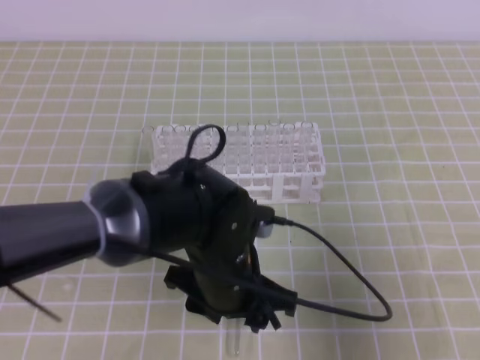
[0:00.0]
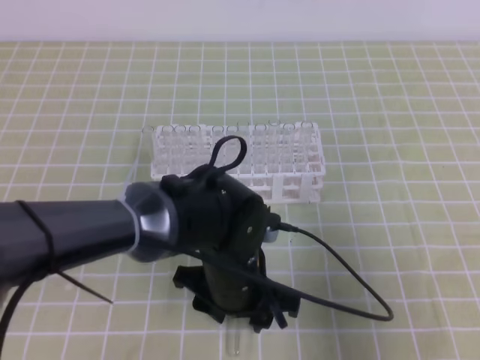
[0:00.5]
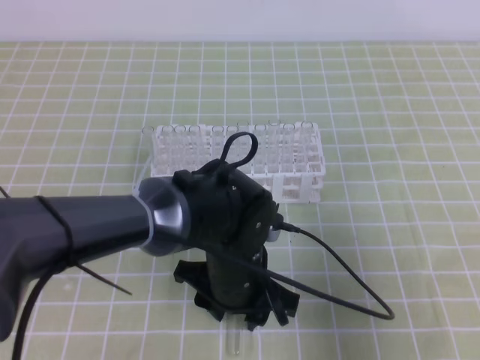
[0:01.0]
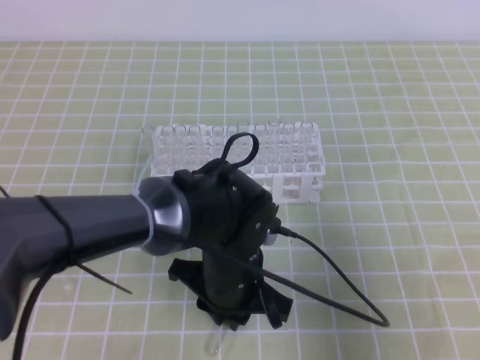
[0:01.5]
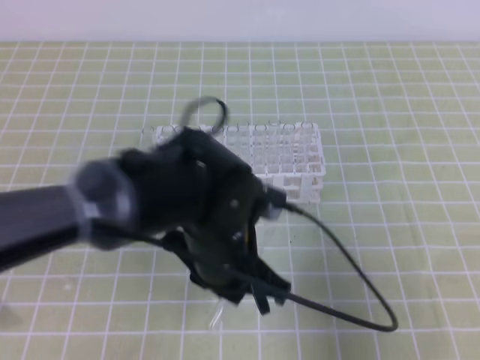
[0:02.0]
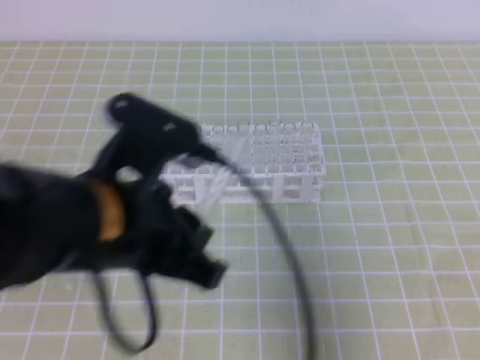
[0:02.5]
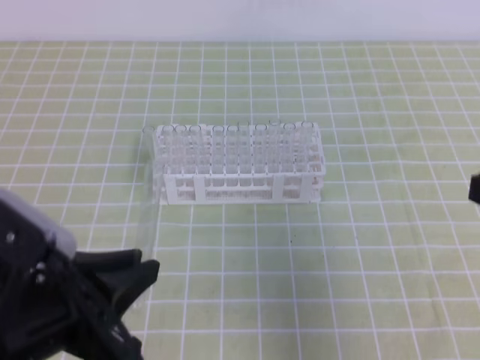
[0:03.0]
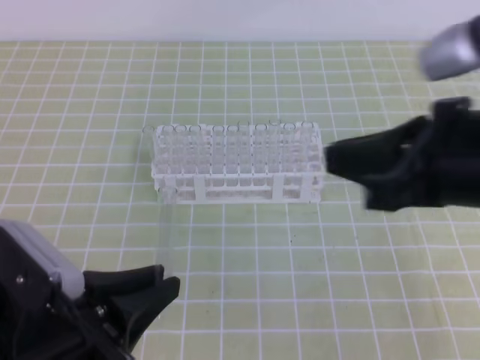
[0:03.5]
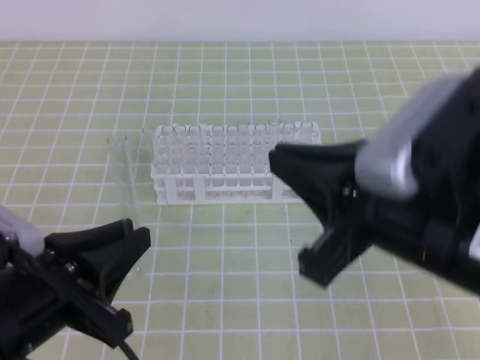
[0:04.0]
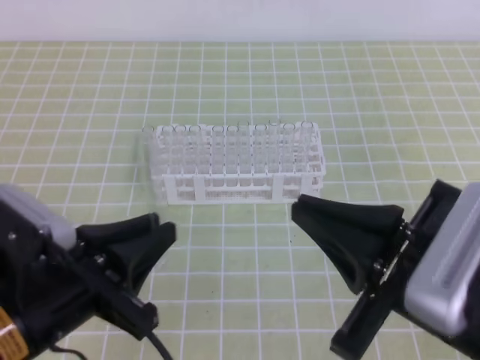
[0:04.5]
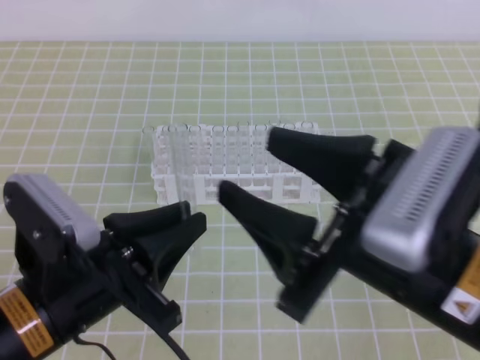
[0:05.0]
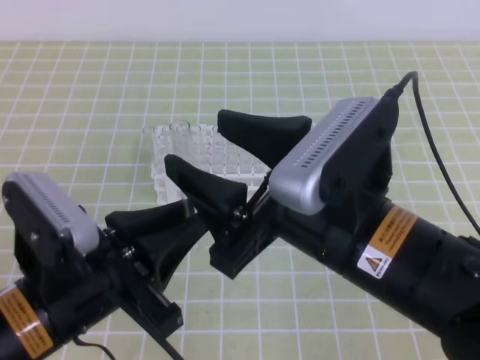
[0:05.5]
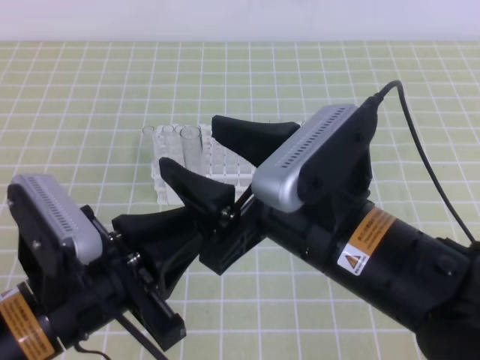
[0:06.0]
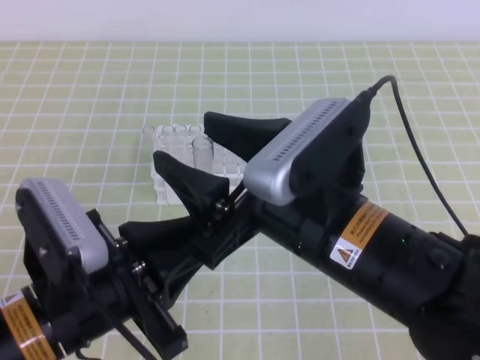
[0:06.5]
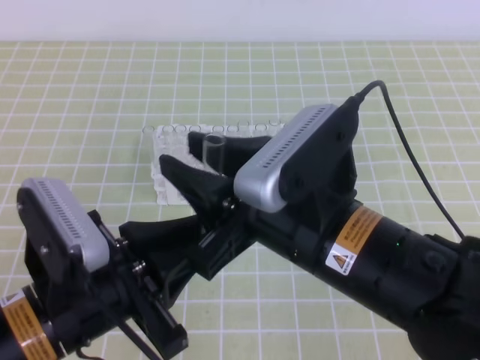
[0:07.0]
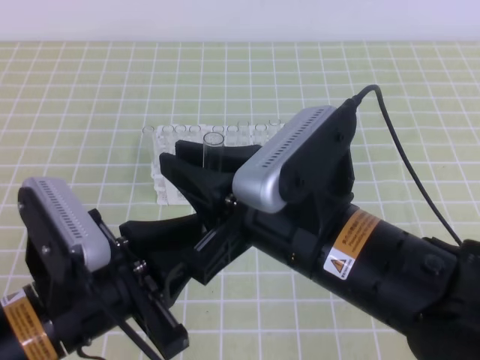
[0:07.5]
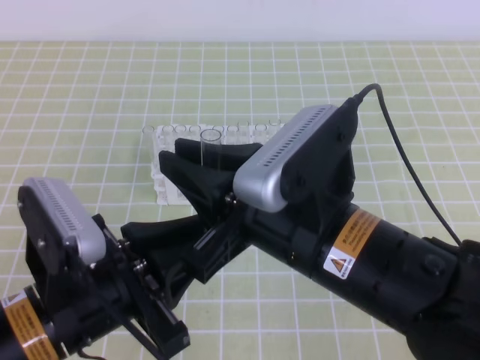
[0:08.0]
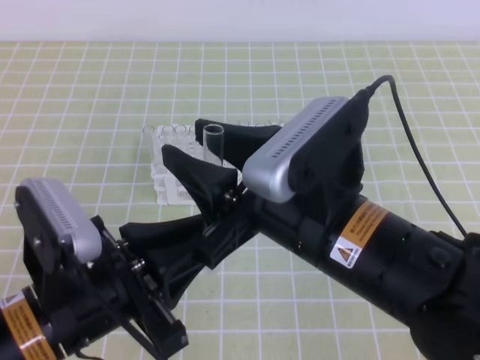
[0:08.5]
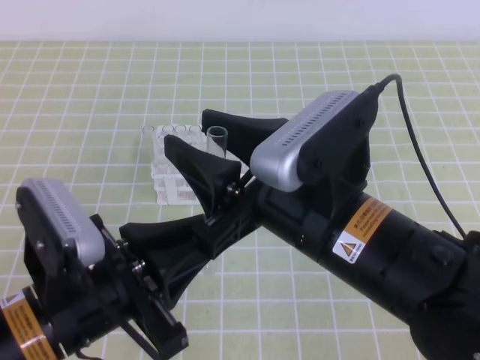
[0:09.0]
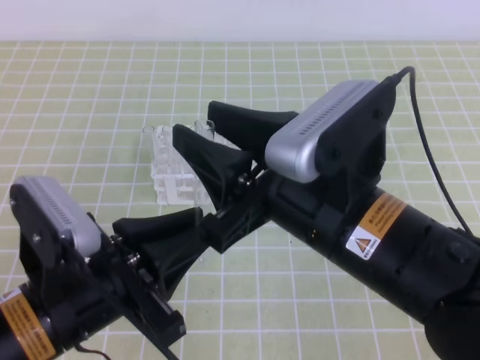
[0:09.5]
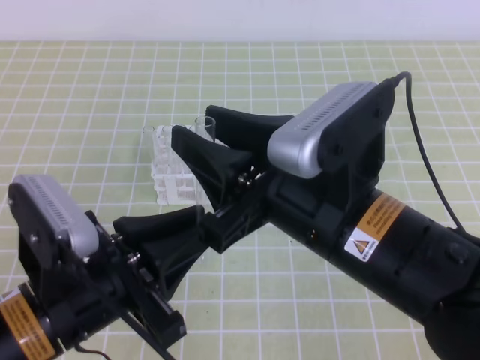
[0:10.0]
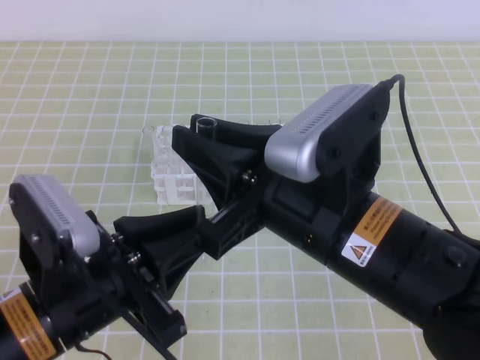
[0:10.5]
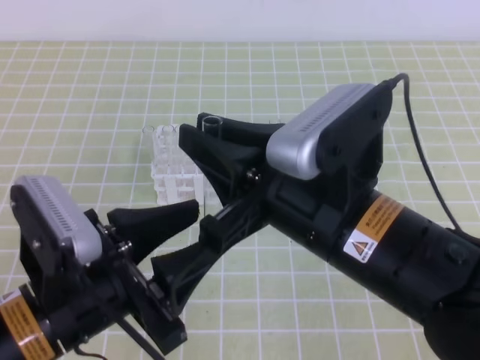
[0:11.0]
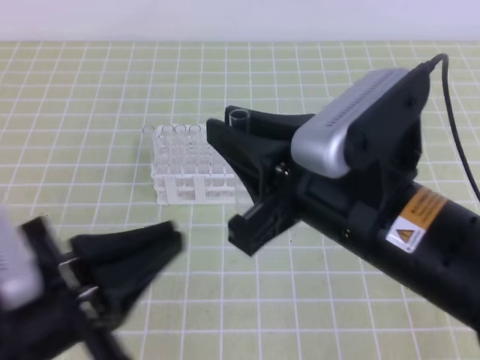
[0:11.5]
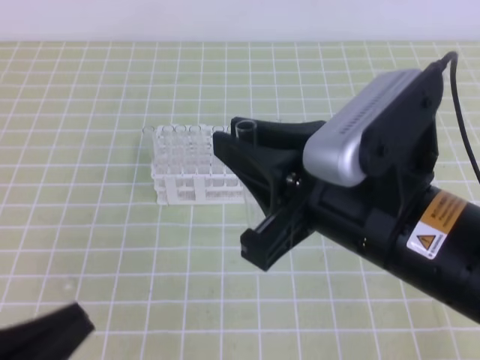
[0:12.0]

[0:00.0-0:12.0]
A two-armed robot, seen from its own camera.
0:00.0 to 0:02.0: The left gripper closes up.
0:02.0 to 0:04.0: The left gripper travels to the left and backward by some 20 cm, while the right gripper is displaced to the left and upward by roughly 15 cm.
0:04.0 to 0:06.0: The right gripper heads to the left, covering roughly 5 cm, and opens up.
0:06.0 to 0:08.0: The right gripper closes.
0:08.0 to 0:10.0: The right gripper opens its fingers.
0:10.0 to 0:12.0: The left gripper goes approximately 10 cm backward and to the left, and opens, then closes once more.

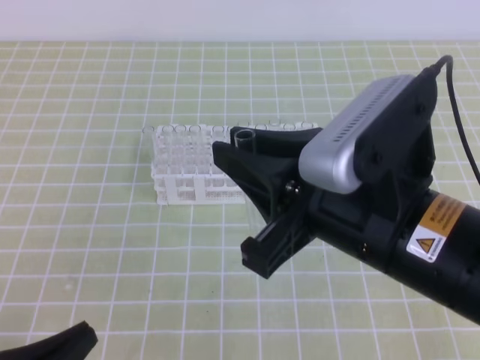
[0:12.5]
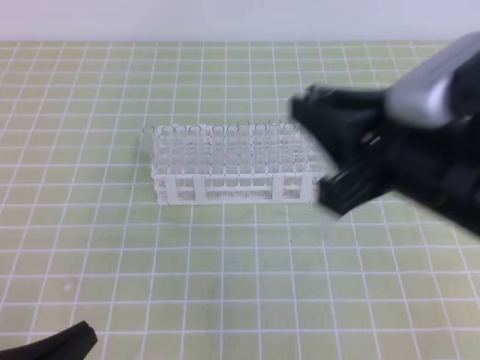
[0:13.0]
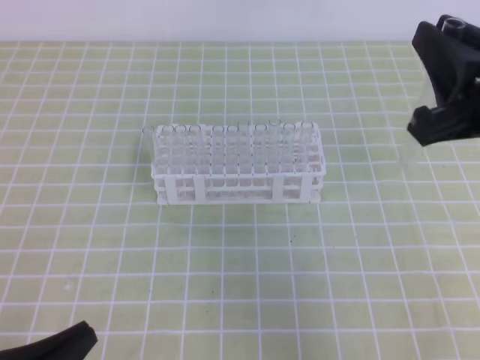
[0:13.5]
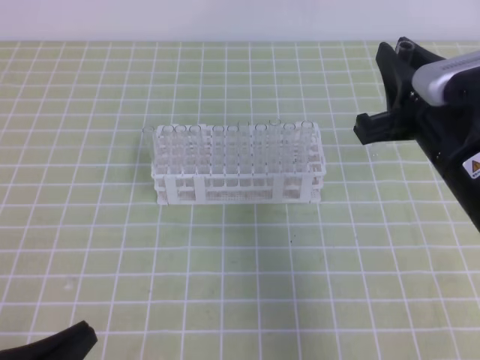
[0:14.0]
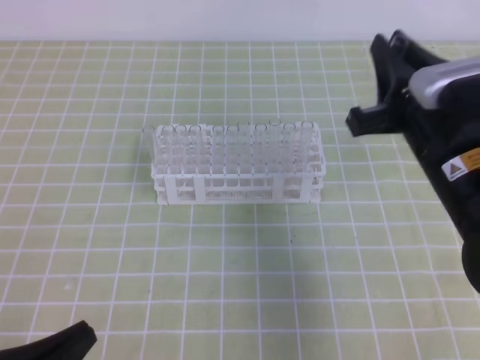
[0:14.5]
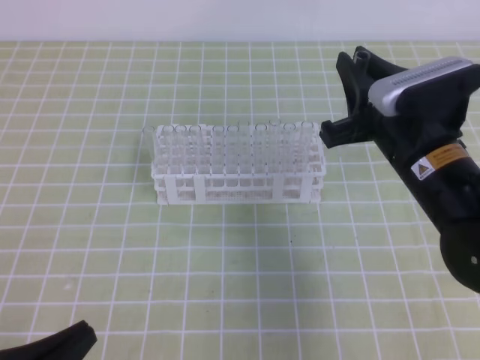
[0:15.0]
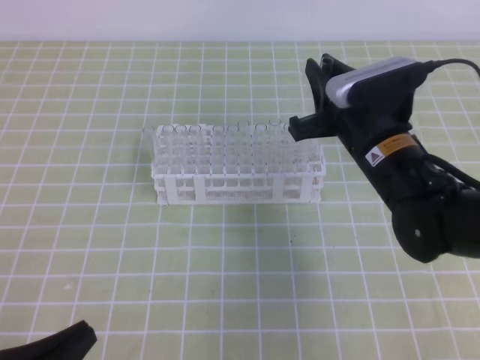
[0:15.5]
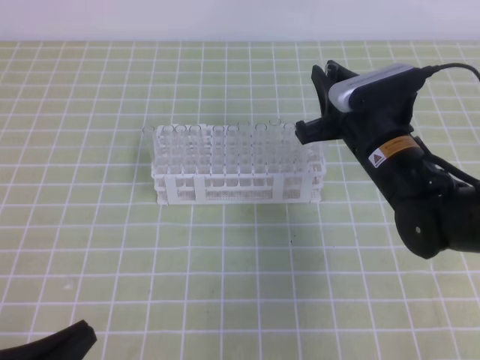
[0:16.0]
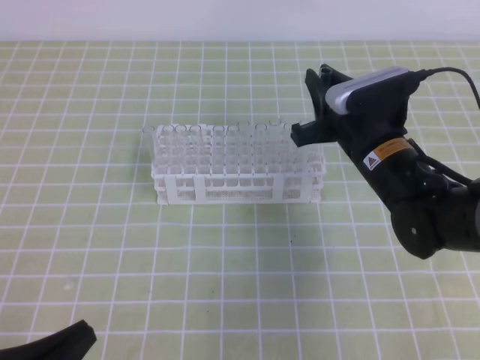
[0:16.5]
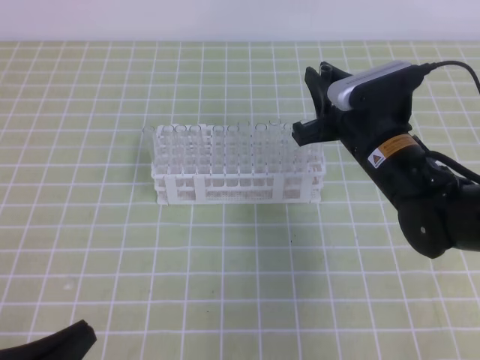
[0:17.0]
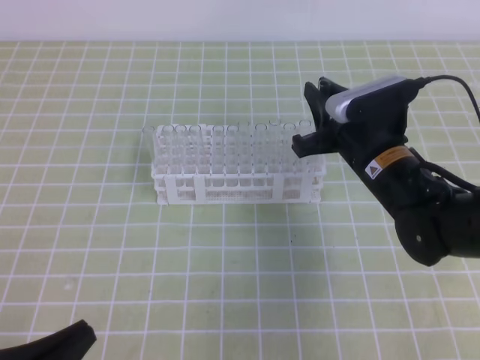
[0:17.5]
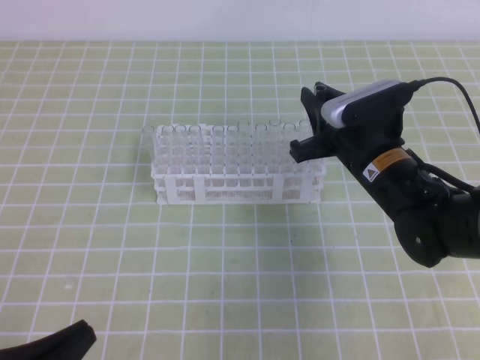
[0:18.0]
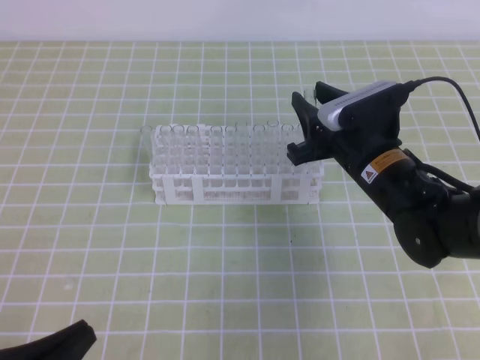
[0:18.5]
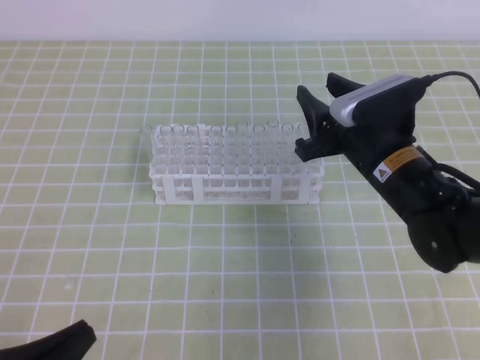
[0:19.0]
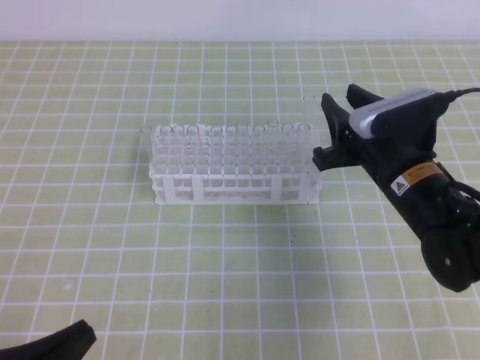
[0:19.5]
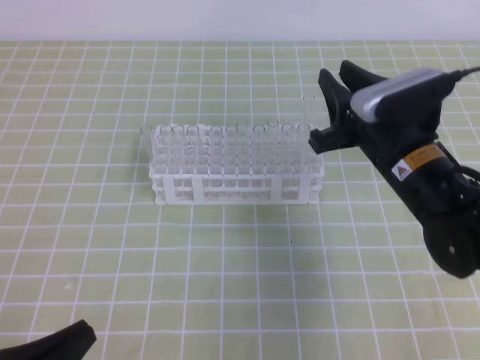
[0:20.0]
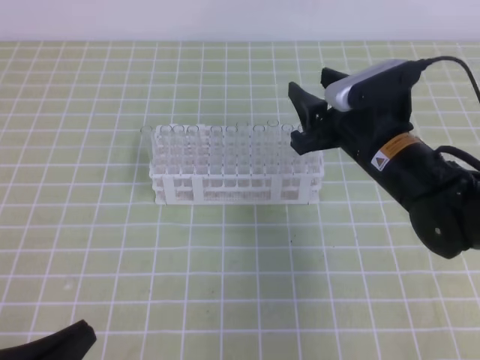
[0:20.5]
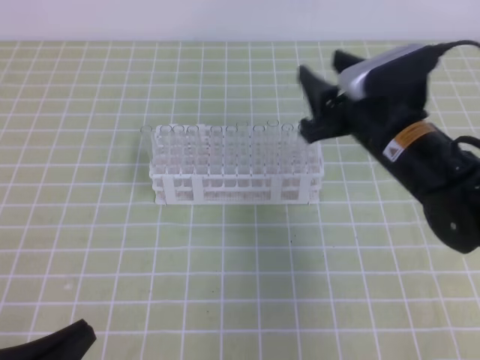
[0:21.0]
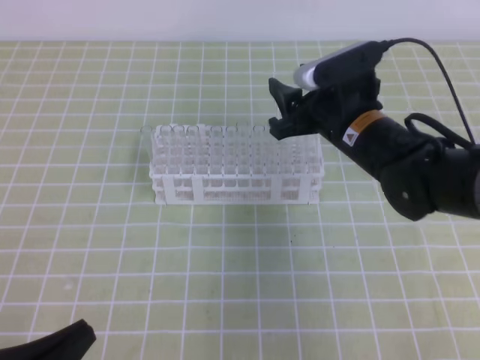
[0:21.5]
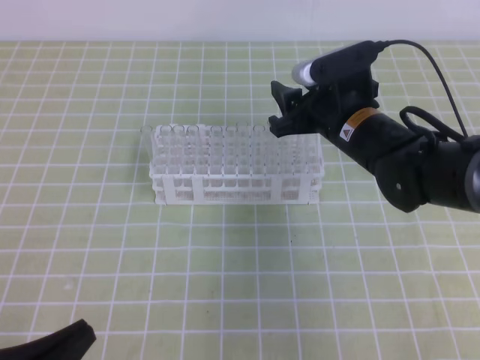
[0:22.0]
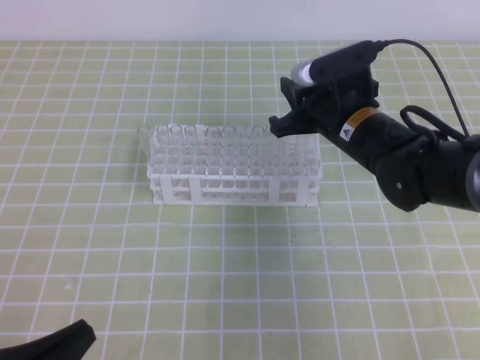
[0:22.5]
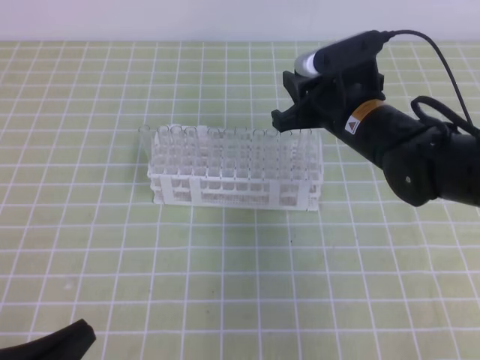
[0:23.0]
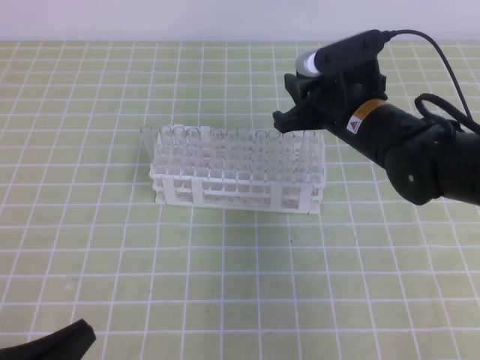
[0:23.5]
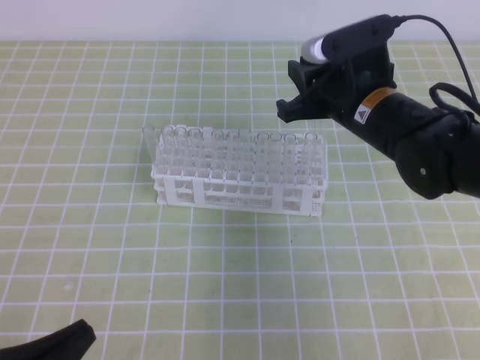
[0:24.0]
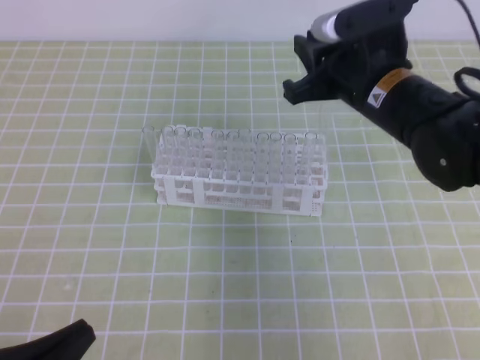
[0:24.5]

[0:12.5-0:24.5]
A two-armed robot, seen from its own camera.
0:12.5 to 0:14.5: The right gripper heads forward, to the right and downward, covering about 15 cm.
0:14.5 to 0:16.5: The right gripper travels forward and downward by approximately 10 cm.
0:16.5 to 0:20.5: The grippers make only small movements.
0:20.5 to 0:22.5: The right gripper shifts by some 5 cm, and closes up.
0:22.5 to 0:24.5: The right gripper moves upward, about 5 cm.

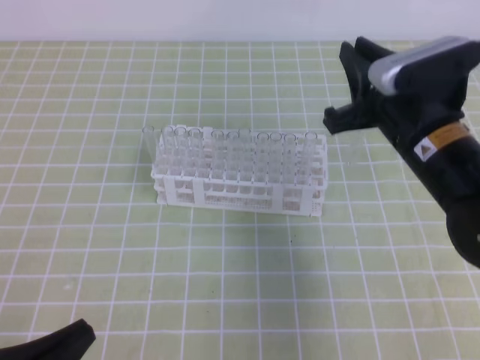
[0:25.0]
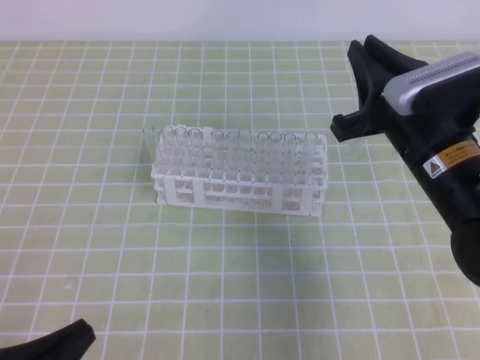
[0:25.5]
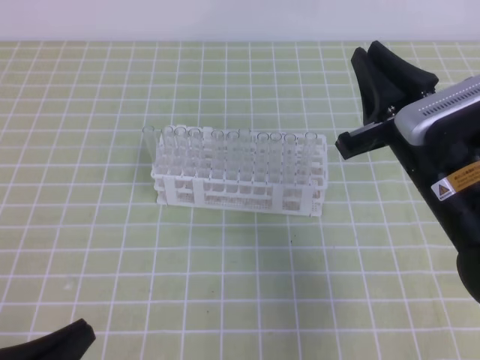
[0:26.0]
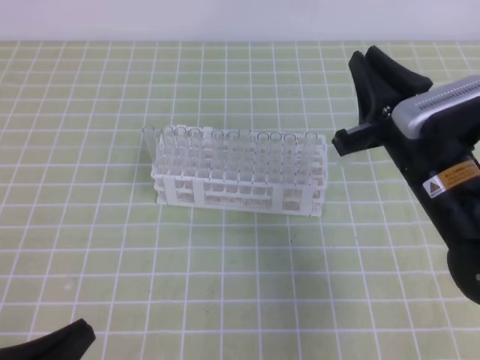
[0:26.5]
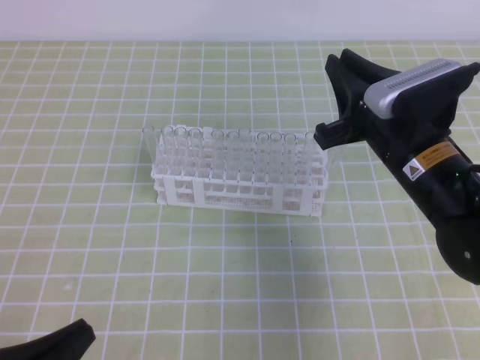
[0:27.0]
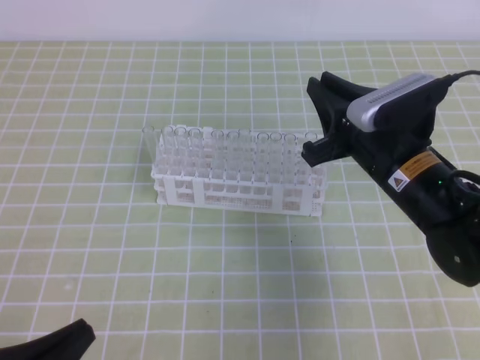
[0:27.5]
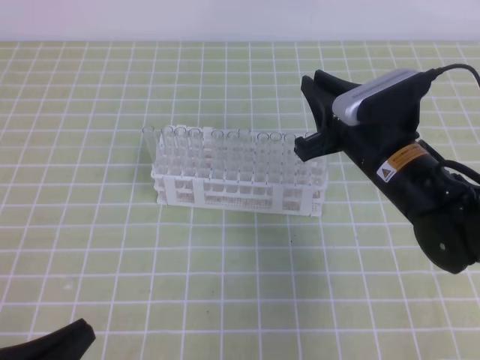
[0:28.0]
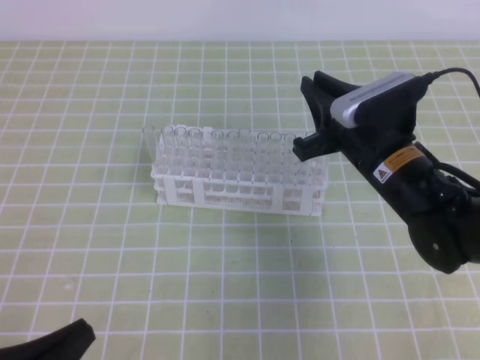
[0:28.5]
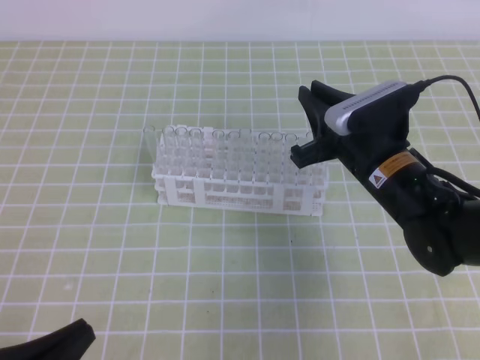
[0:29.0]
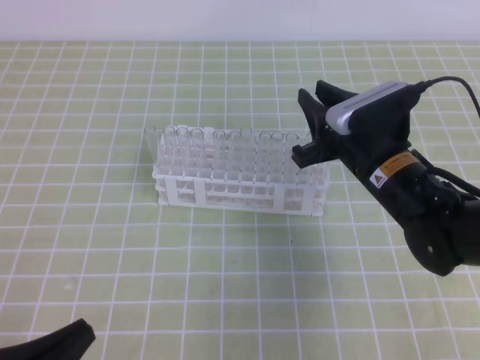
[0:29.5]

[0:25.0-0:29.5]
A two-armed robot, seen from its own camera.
0:25.0 to 0:27.0: The grippers stay close to where they were, moving slightly.
0:27.0 to 0:29.5: The right gripper ends up approximately 5 cm from where it was.
